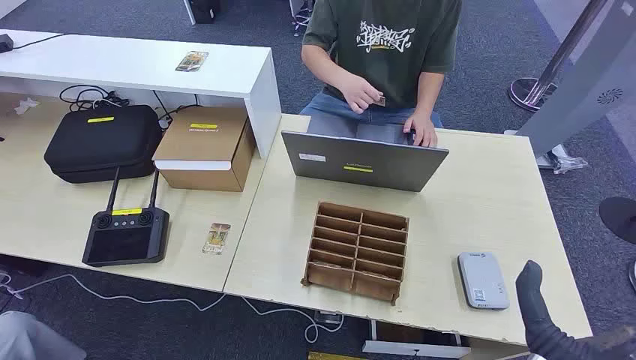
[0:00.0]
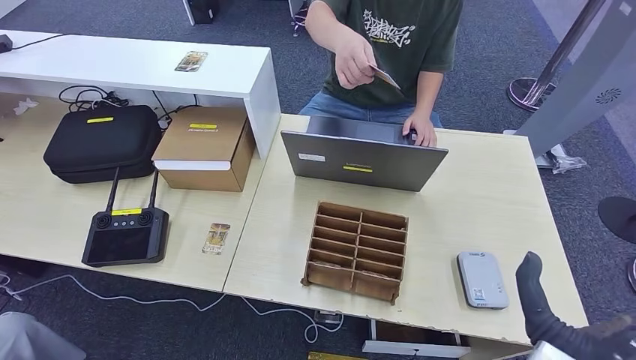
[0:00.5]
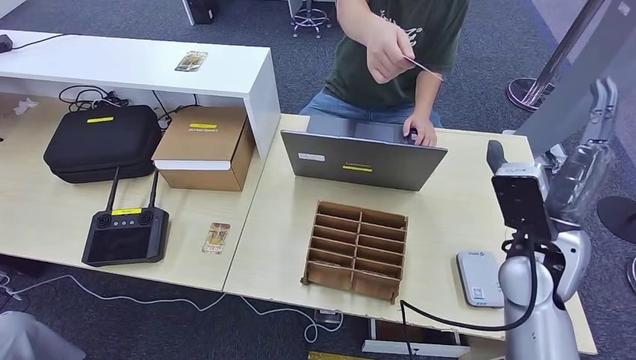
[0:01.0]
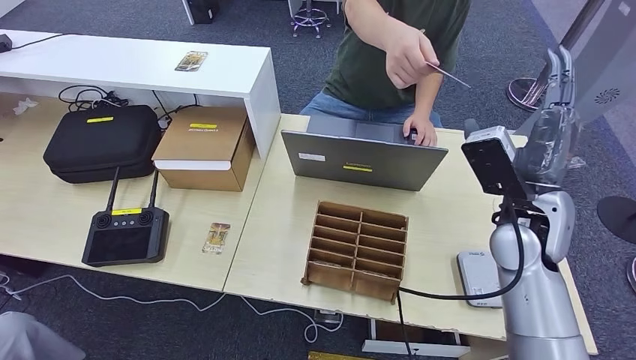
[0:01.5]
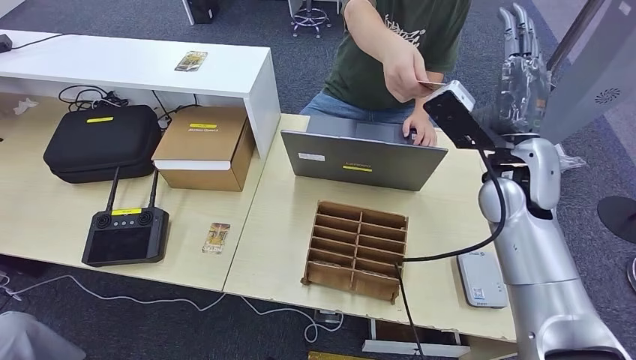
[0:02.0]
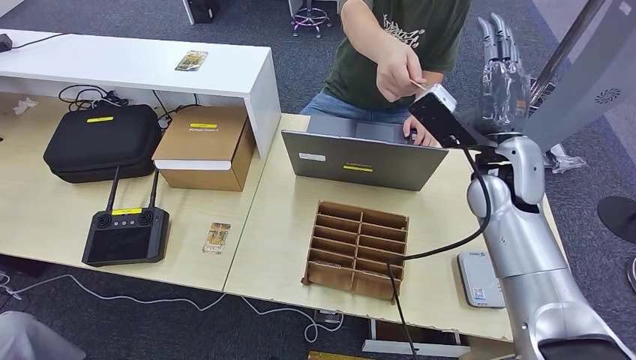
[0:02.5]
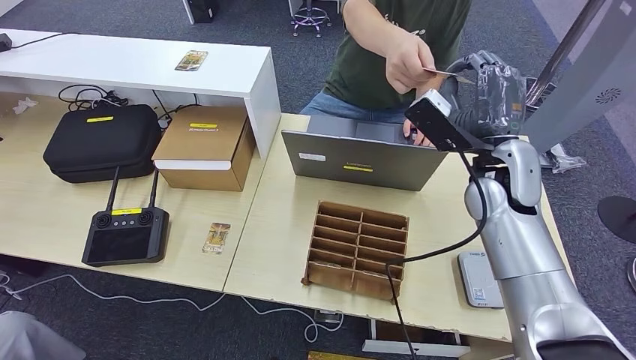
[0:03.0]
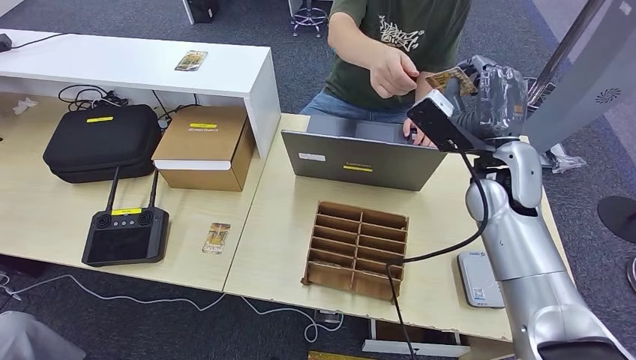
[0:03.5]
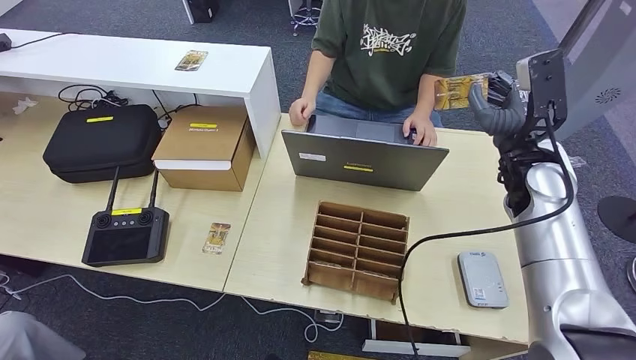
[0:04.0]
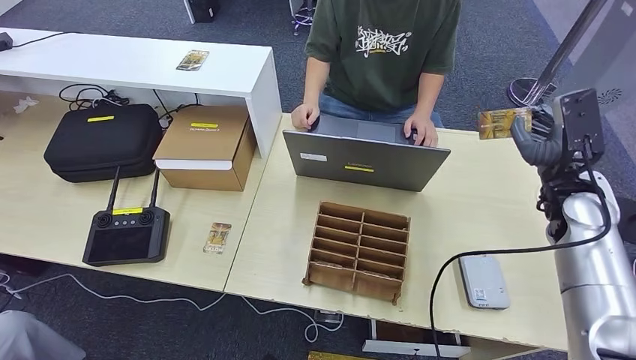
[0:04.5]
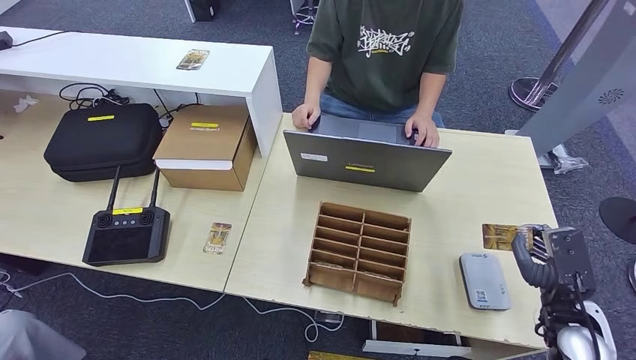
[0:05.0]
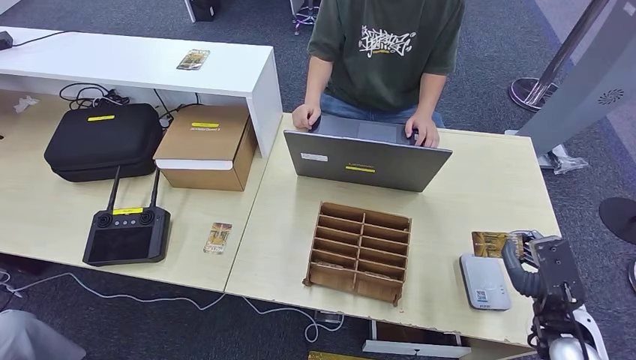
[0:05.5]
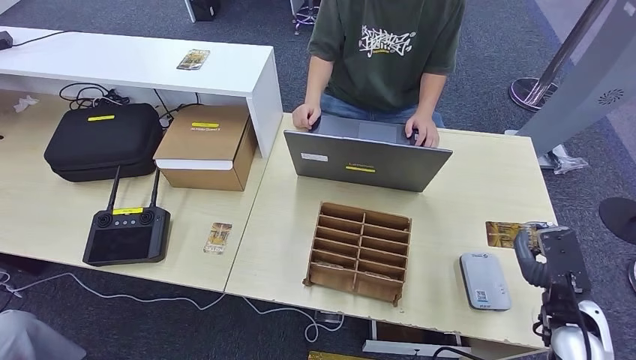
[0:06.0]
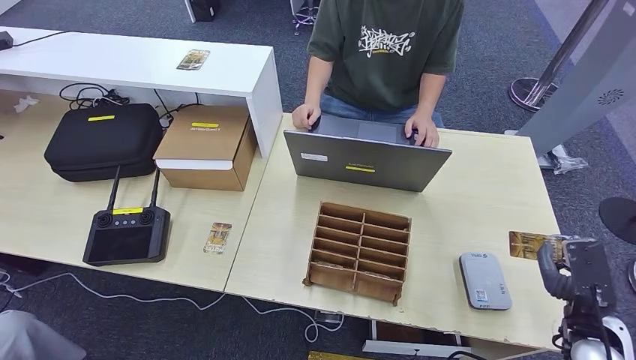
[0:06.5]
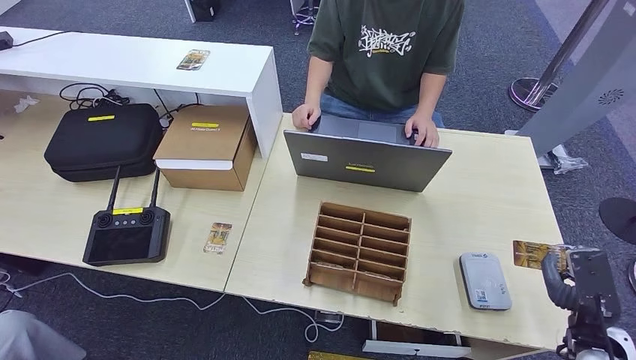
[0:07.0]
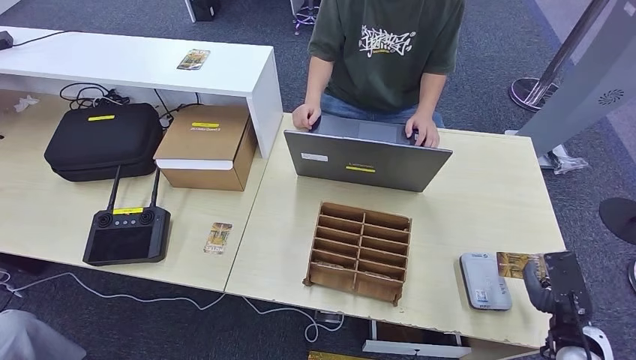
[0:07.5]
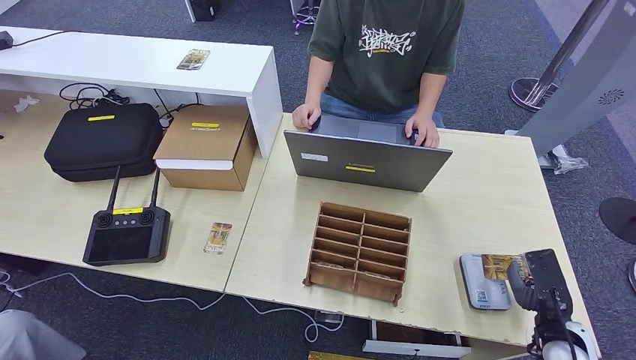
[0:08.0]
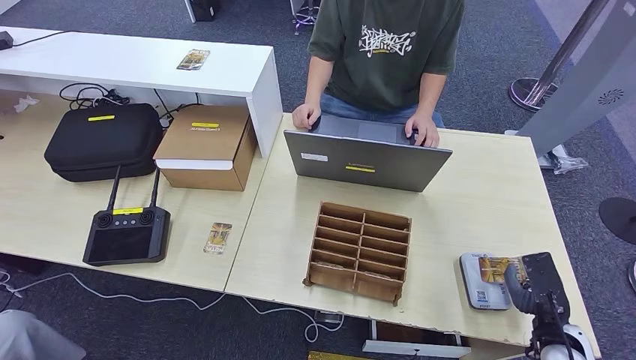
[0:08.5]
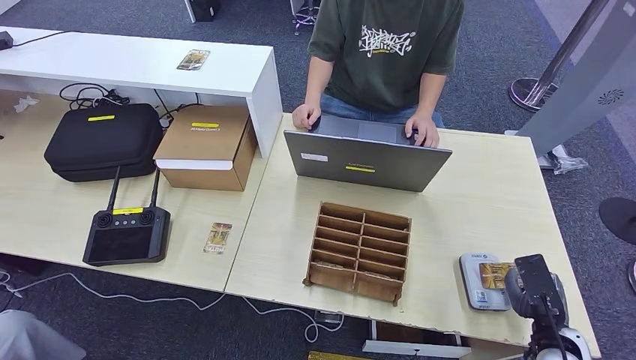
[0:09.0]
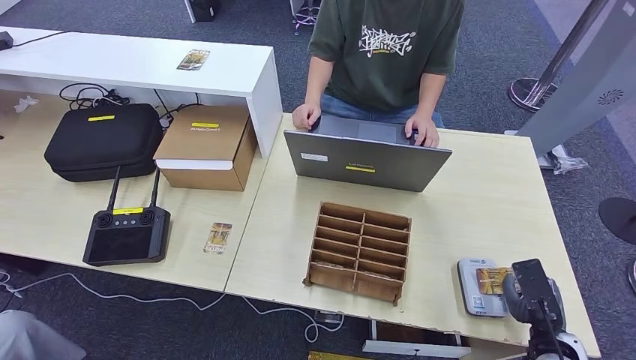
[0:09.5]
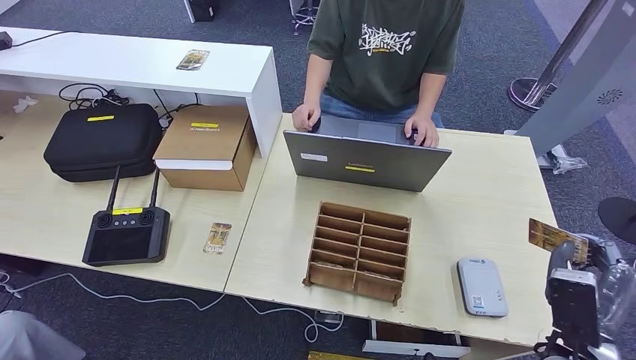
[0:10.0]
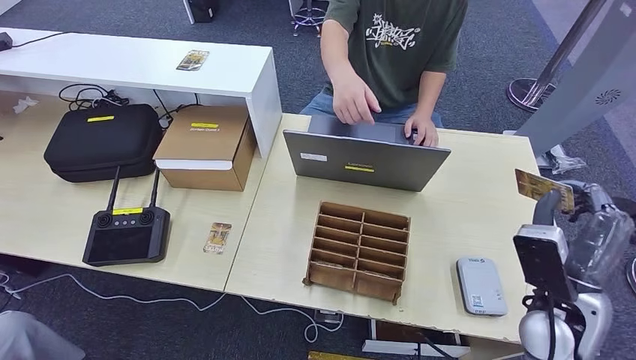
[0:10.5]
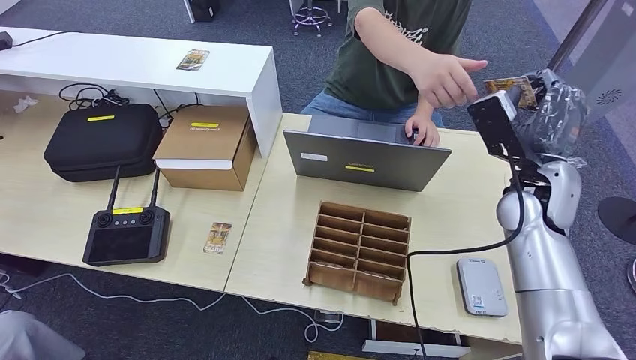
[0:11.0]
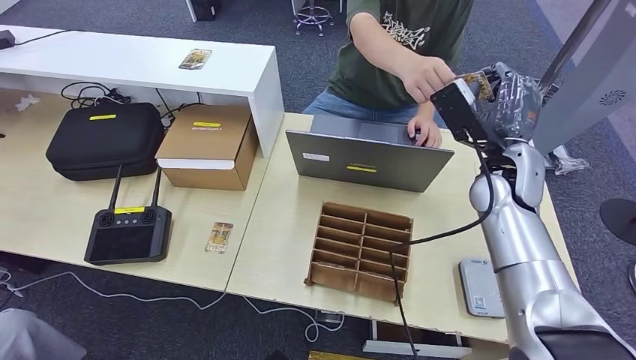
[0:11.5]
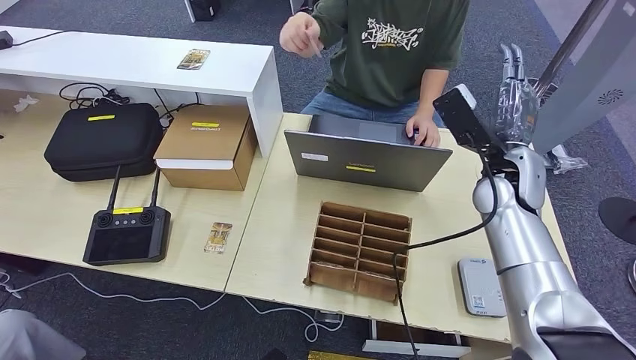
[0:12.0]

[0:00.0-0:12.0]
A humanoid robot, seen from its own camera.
Step, 0:00.0 to 0:04.5: Take the ID card from the person's hand.
Step, 0:05.0 to 0:09.0: Place the ID card on the card reader.
0:02.0 to 0:04.0: The right hand ends up some 5 cm from where it was.
0:04.0 to 0:06.0: The right hand goes some 25 cm backward, downward and to the right.
0:06.0 to 0:08.0: The right hand goes approximately 5 cm downward.
0:08.0 to 0:10.0: The right hand is displaced upward by about 5 cm.
0:10.0 to 0:12.0: The right hand travels forward, upward and to the left by about 30 cm.

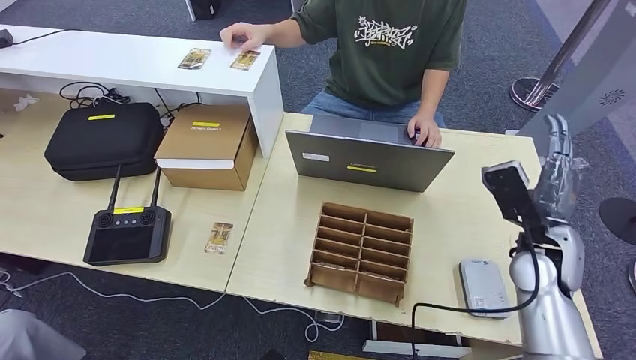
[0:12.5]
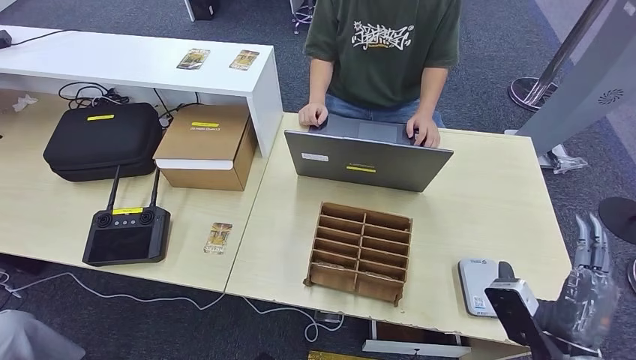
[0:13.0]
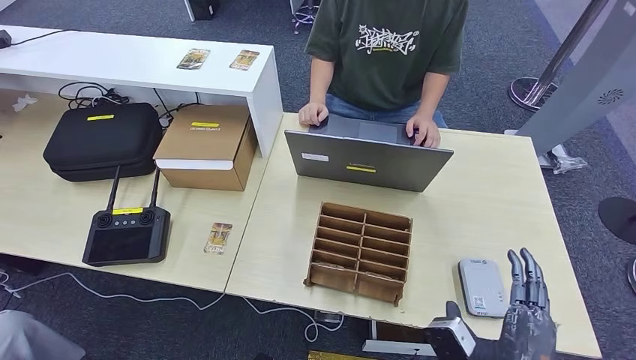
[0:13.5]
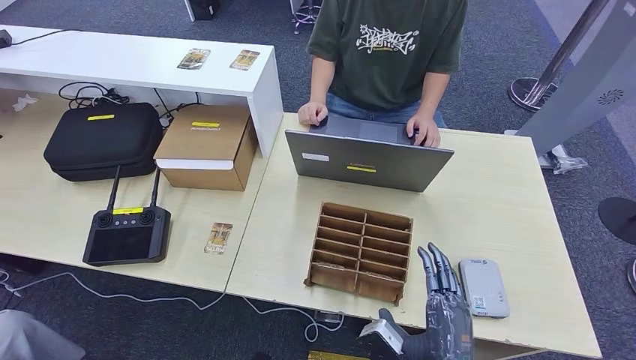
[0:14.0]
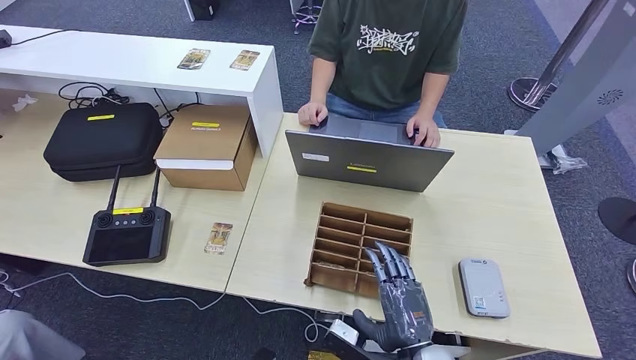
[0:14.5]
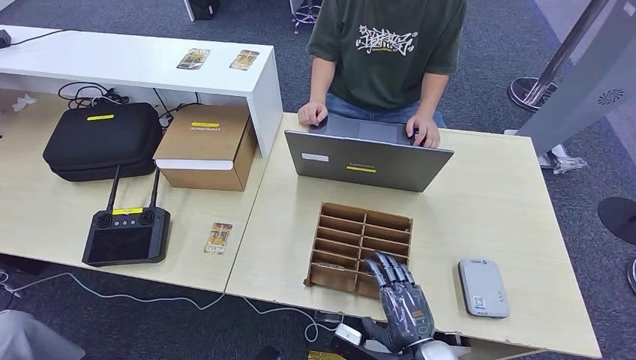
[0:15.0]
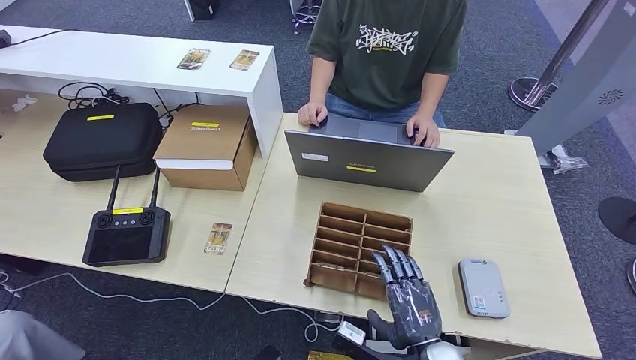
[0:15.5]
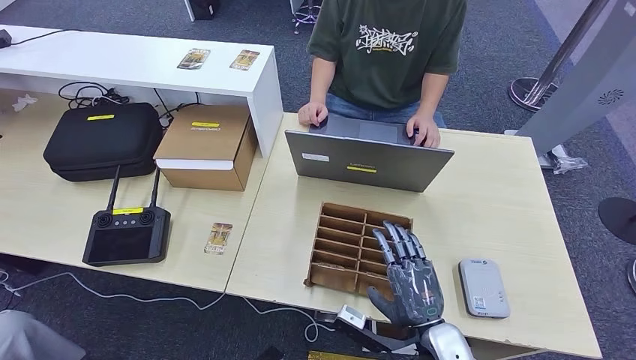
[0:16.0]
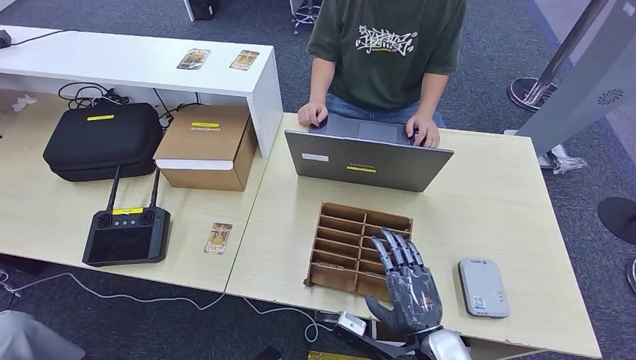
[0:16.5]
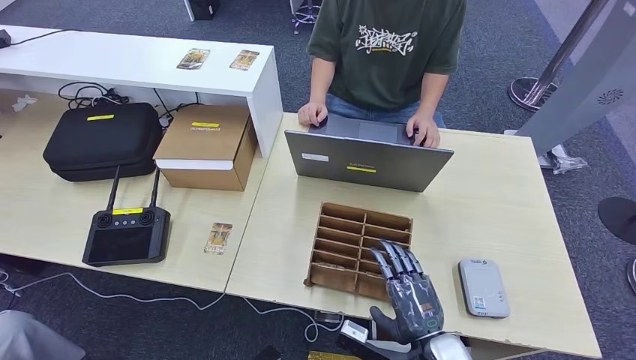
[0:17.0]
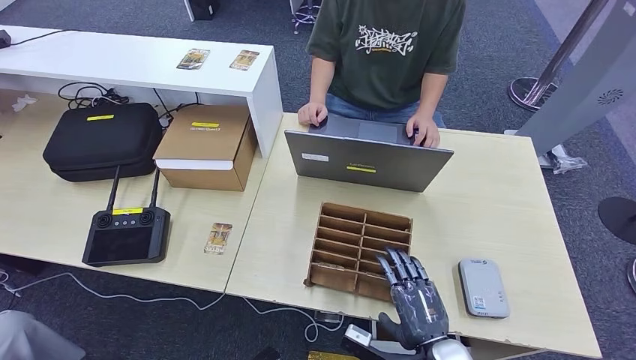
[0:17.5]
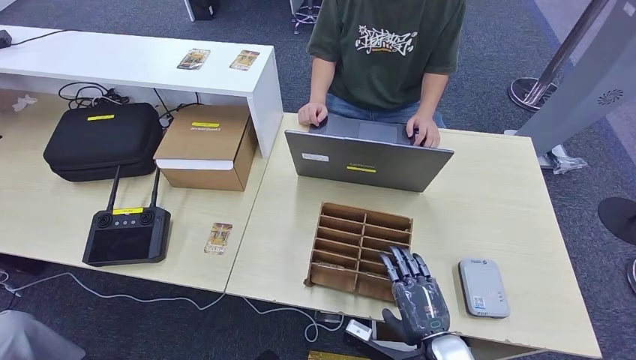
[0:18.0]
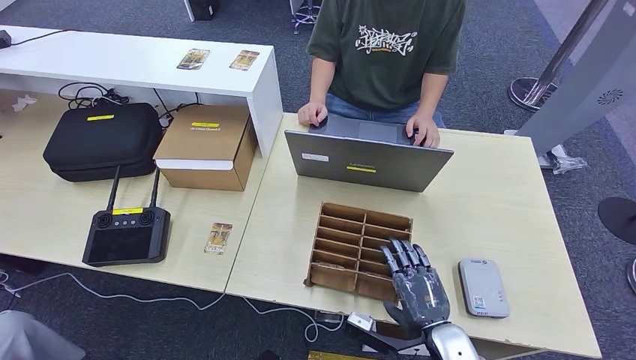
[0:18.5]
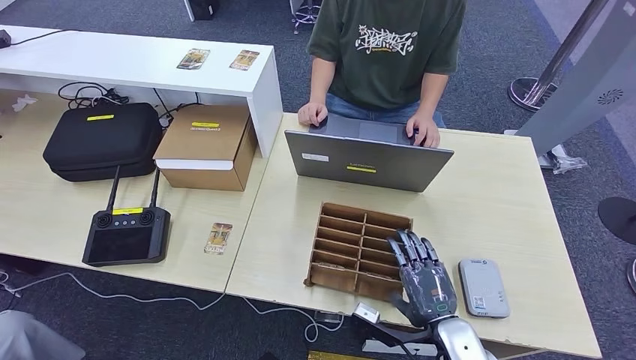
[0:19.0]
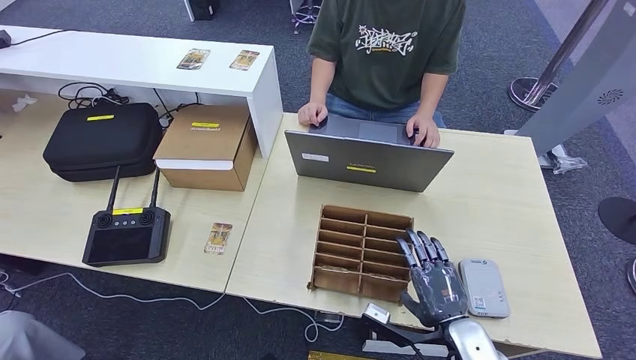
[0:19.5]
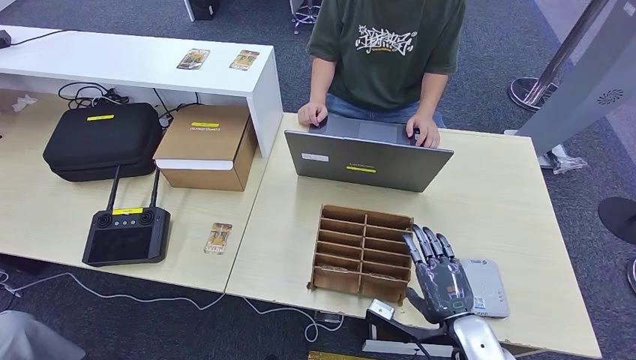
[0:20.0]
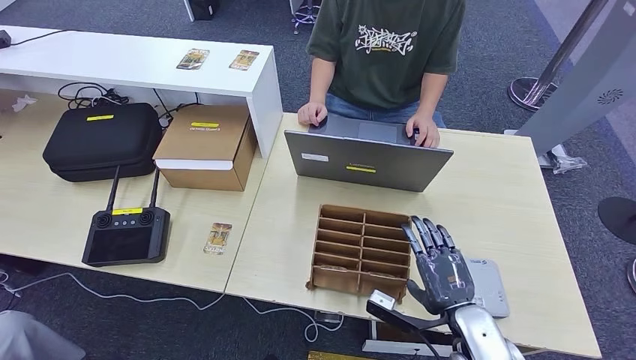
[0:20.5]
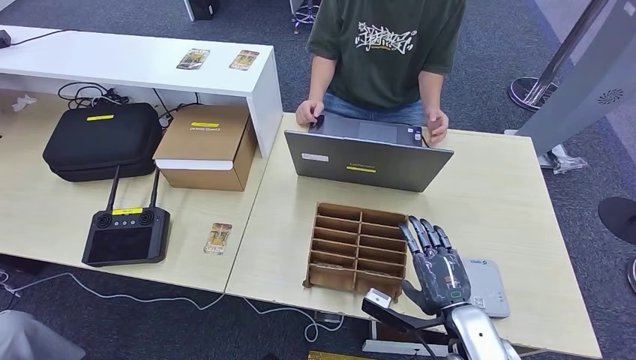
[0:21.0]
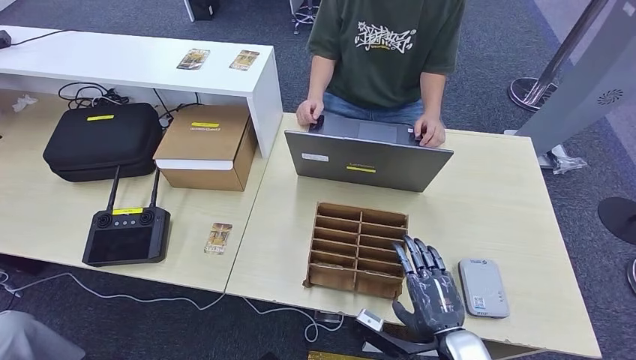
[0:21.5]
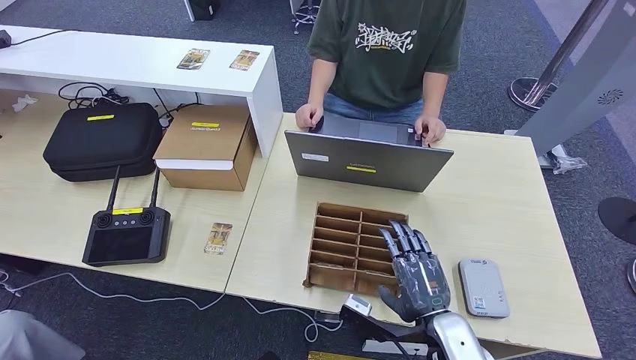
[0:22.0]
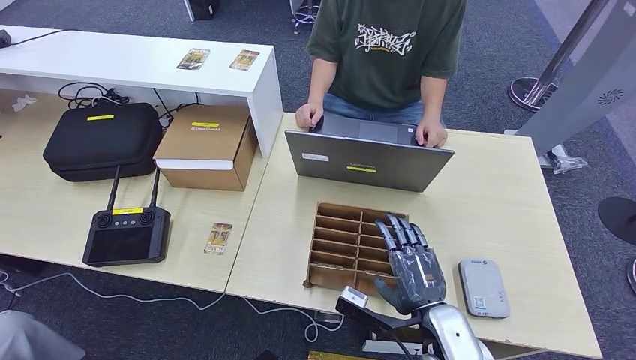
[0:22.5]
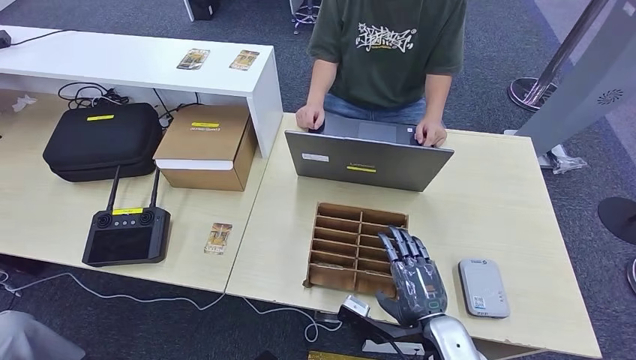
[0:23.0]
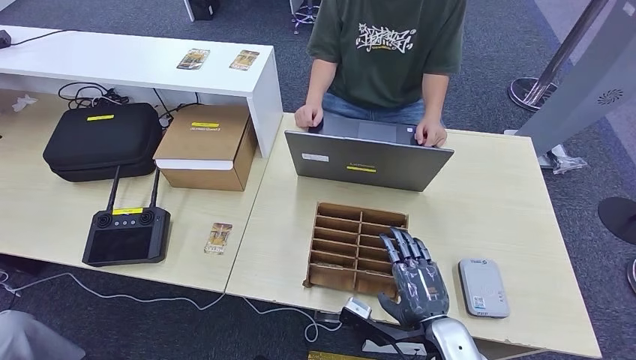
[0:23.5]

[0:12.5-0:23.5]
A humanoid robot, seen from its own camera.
0:12.5 to 0:14.5: The right hand shifts some 25 cm backward, to the left and downward.
0:14.5 to 0:18.0: There are only small adjustments of the hands.
0:18.0 to 0:20.0: The right hand ends up approximately 5 cm from where it was.
0:20.0 to 0:23.5: The hands make only small movements.
